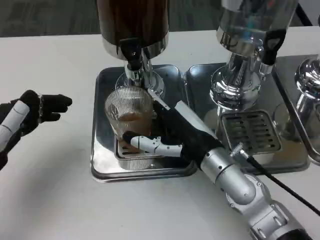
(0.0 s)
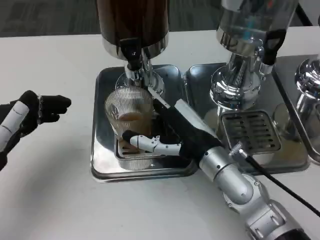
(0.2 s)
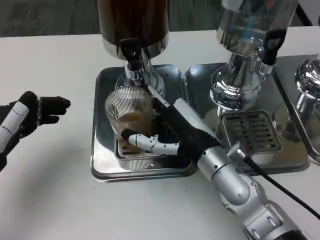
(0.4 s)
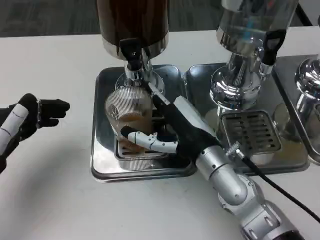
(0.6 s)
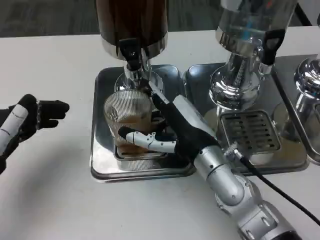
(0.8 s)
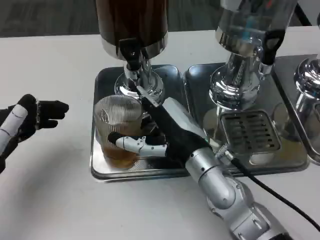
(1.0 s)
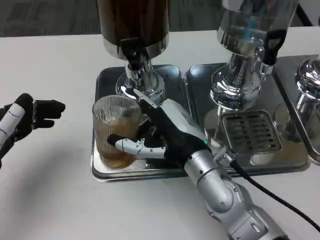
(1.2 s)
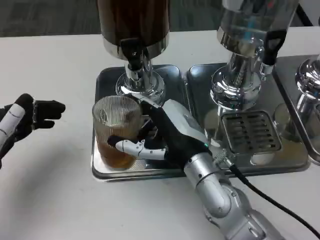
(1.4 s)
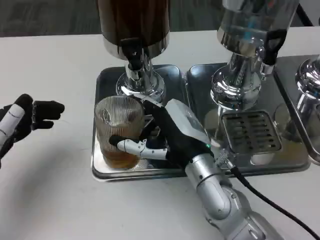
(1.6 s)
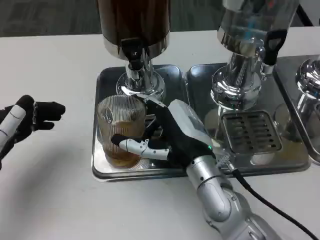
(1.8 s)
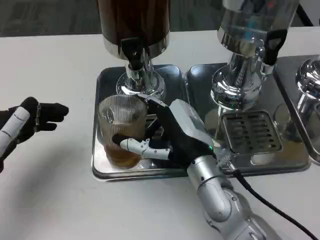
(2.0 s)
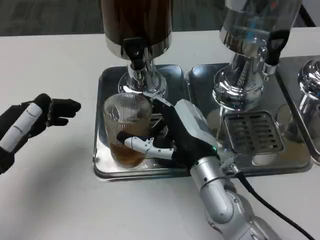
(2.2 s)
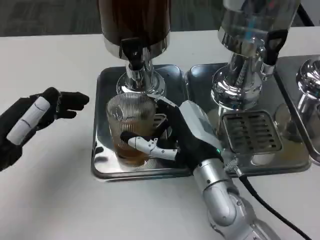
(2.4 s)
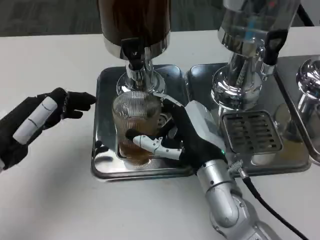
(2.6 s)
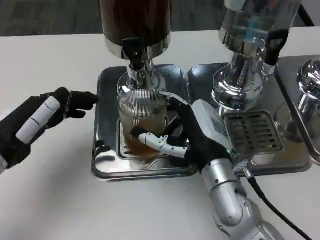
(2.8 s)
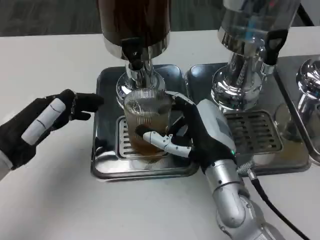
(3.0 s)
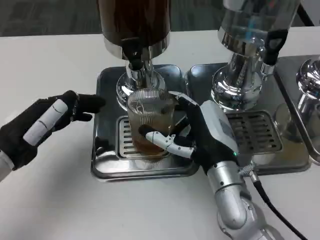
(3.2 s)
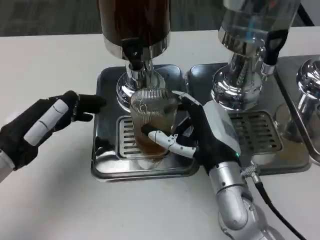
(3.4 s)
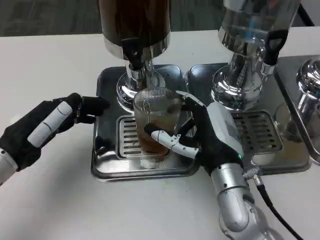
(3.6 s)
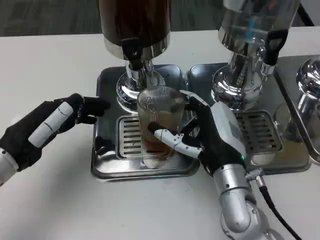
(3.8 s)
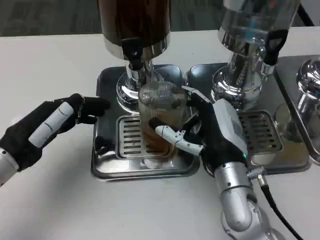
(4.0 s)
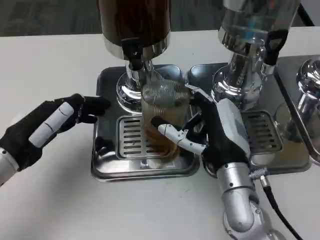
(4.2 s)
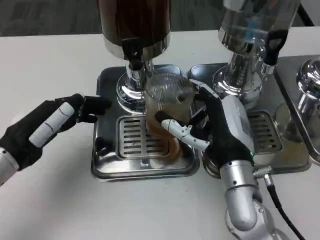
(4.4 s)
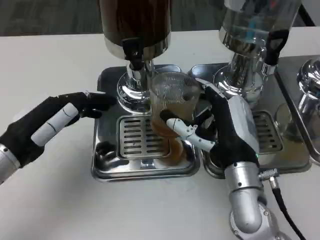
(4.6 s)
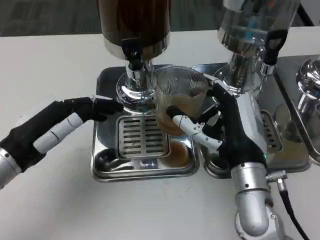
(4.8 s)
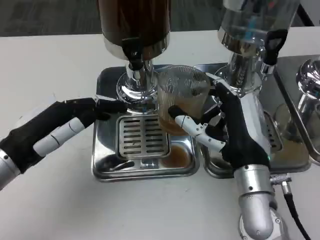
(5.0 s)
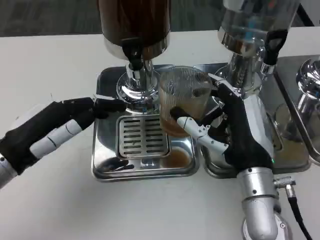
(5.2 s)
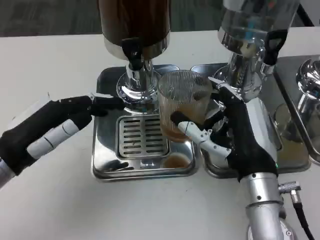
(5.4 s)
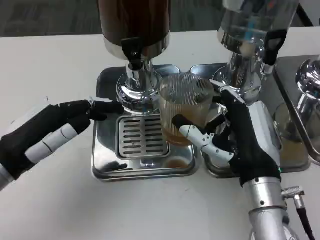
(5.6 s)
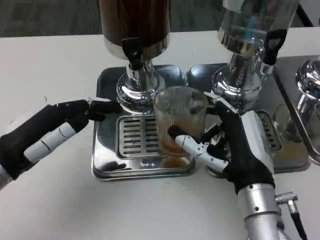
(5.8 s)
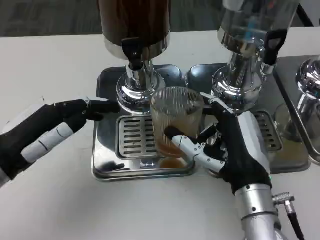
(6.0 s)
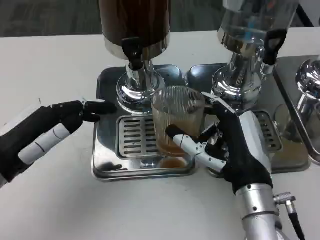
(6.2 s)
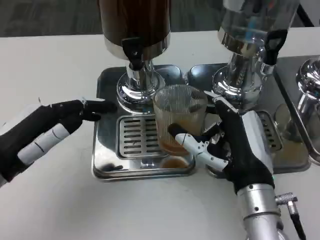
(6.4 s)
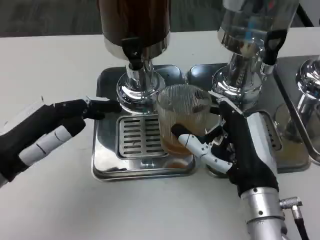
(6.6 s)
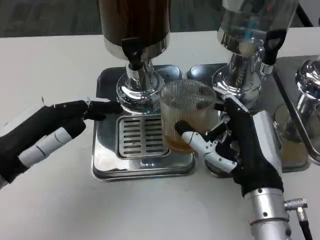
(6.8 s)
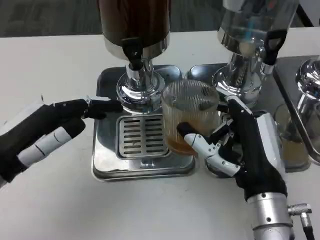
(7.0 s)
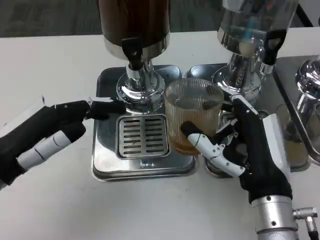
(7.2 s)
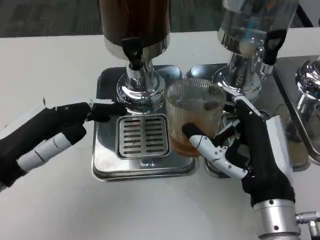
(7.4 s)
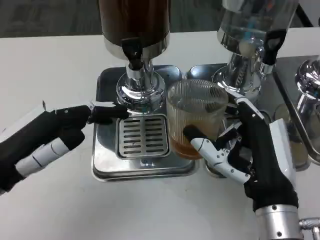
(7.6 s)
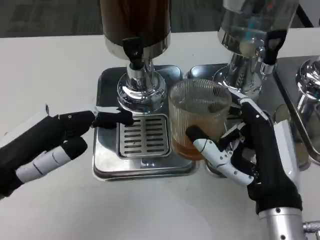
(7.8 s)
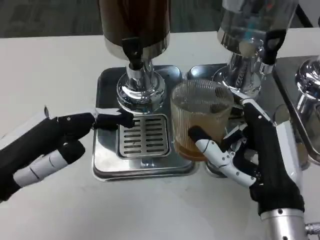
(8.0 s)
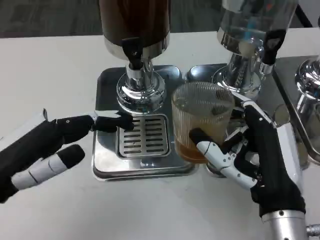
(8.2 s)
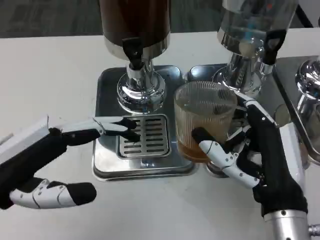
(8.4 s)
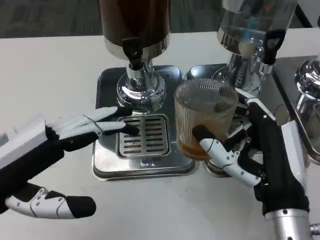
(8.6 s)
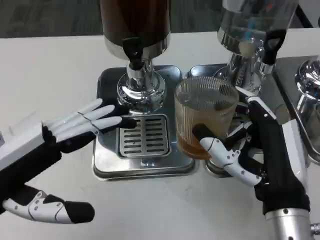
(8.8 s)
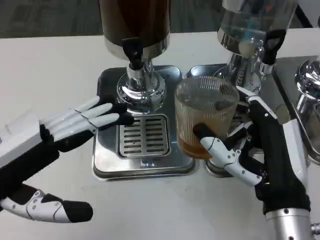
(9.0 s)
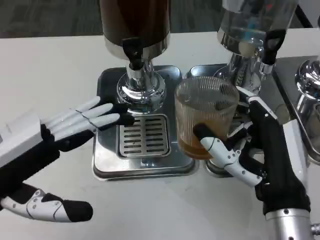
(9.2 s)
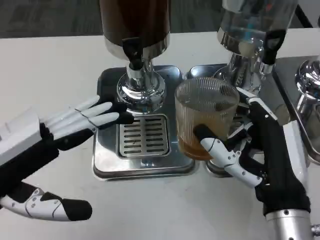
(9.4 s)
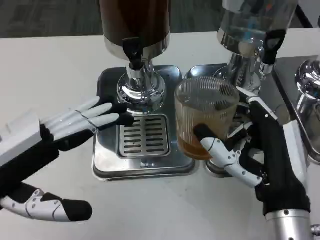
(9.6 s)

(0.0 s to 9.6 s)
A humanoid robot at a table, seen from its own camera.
Task of the whole recording: Grasp the cup under the faucet to collect the drink, then remove the cup.
0.0 s - 1.6 s: The hands make only small movements.
4.8 s - 6.4 s: There are only small adjustments of the hands.
6.4 s - 8.0 s: The right hand ends up some 5 cm from where it was.

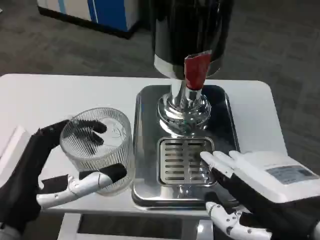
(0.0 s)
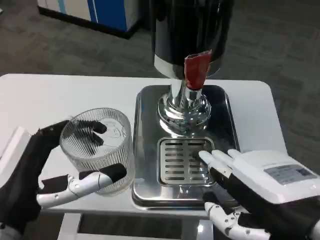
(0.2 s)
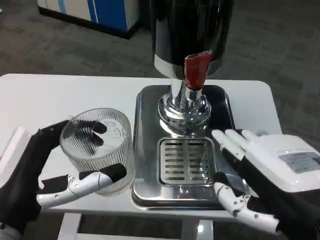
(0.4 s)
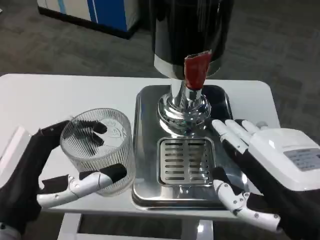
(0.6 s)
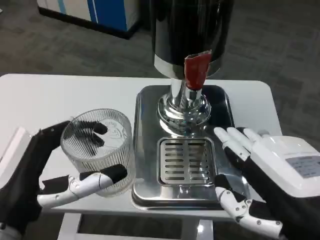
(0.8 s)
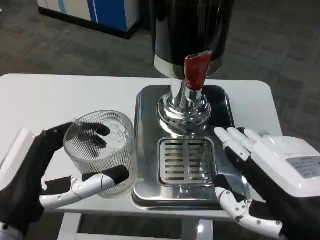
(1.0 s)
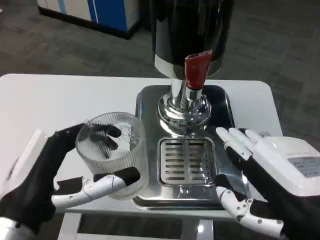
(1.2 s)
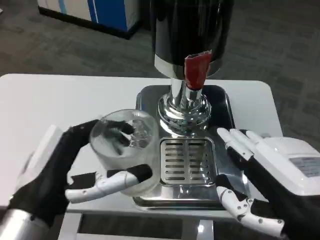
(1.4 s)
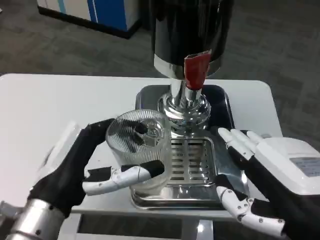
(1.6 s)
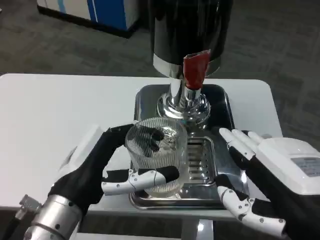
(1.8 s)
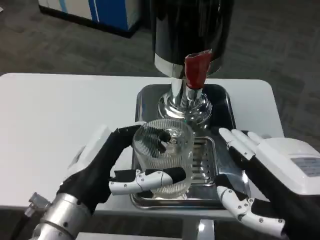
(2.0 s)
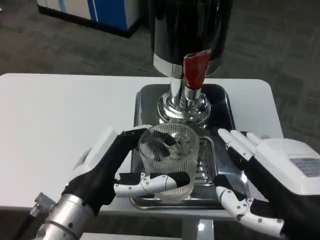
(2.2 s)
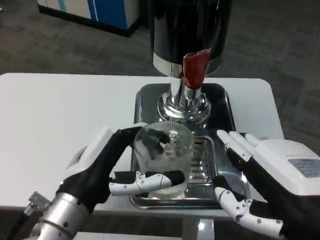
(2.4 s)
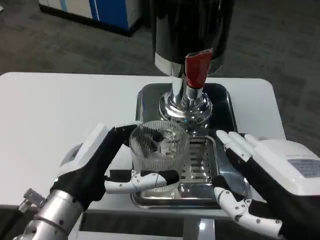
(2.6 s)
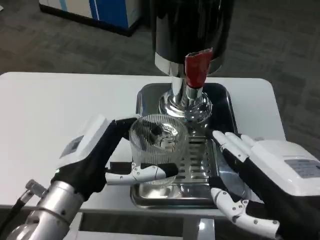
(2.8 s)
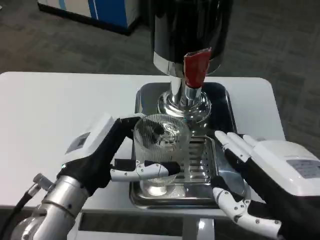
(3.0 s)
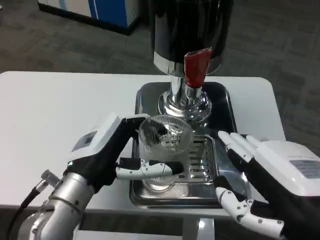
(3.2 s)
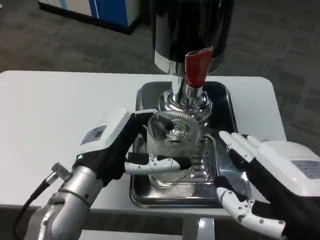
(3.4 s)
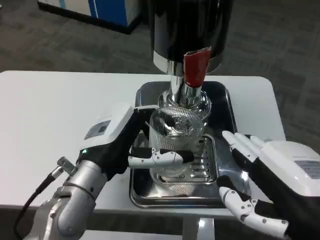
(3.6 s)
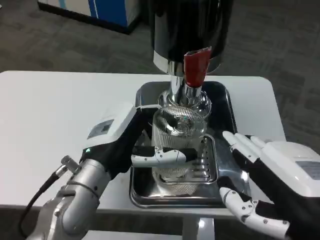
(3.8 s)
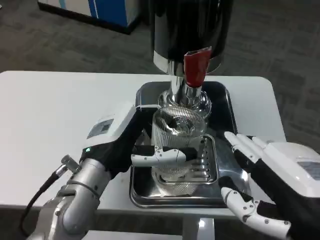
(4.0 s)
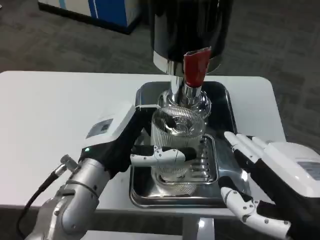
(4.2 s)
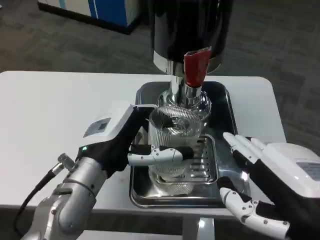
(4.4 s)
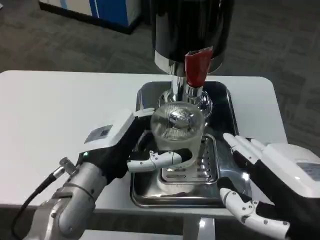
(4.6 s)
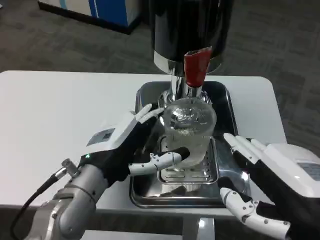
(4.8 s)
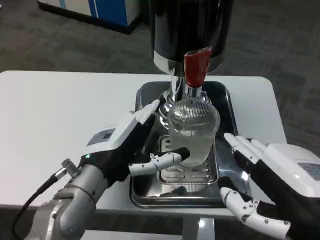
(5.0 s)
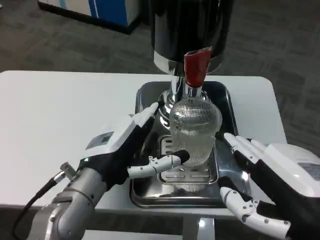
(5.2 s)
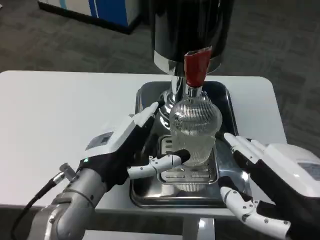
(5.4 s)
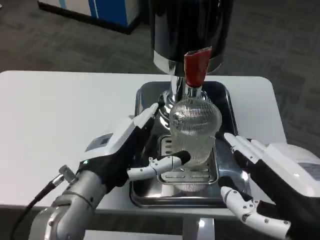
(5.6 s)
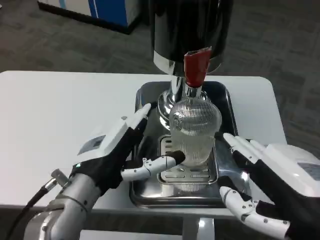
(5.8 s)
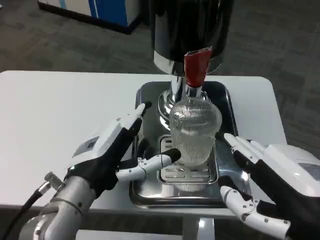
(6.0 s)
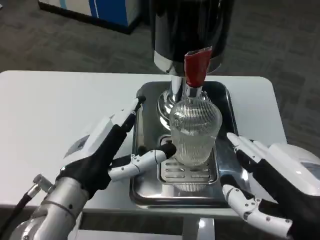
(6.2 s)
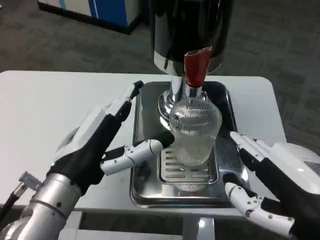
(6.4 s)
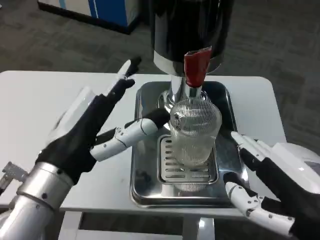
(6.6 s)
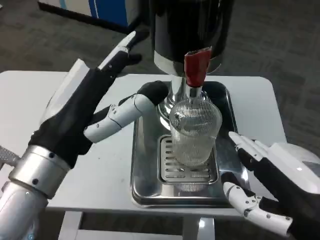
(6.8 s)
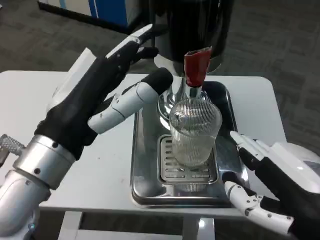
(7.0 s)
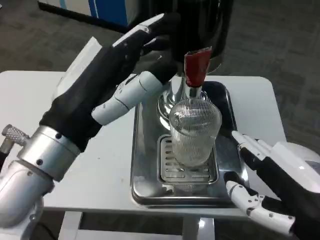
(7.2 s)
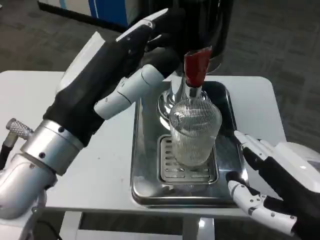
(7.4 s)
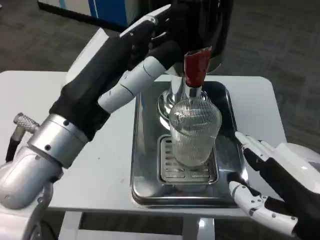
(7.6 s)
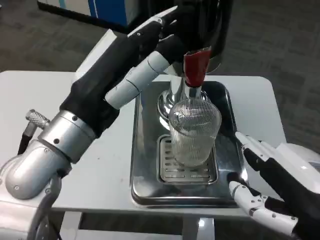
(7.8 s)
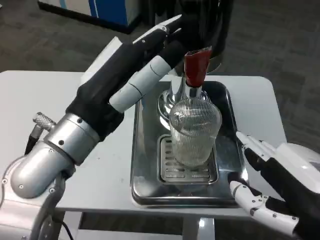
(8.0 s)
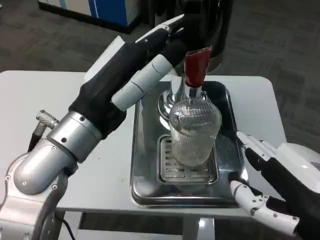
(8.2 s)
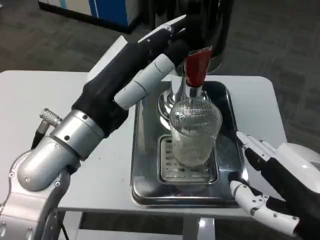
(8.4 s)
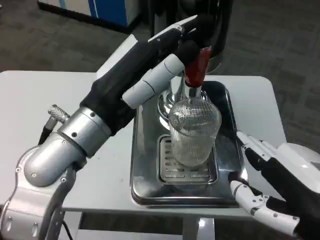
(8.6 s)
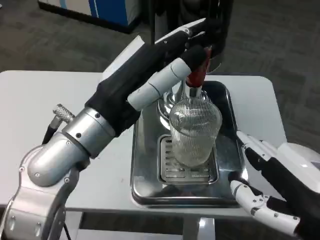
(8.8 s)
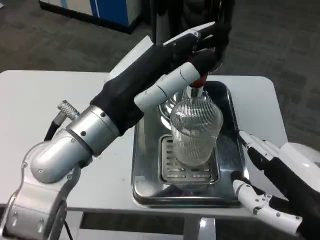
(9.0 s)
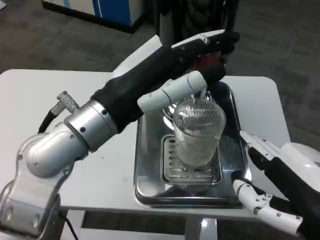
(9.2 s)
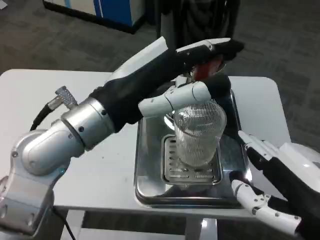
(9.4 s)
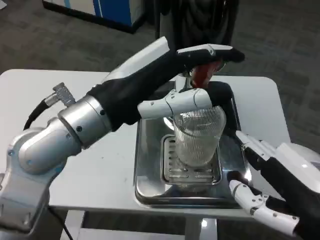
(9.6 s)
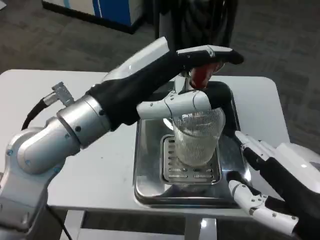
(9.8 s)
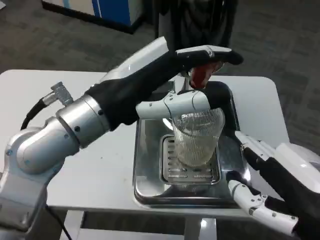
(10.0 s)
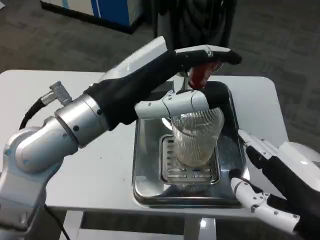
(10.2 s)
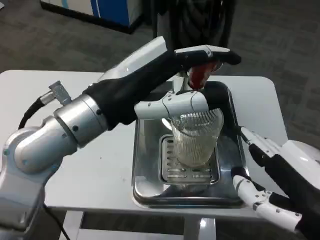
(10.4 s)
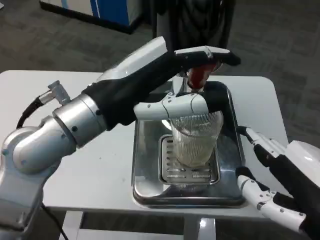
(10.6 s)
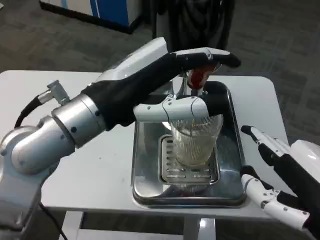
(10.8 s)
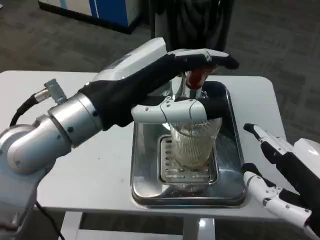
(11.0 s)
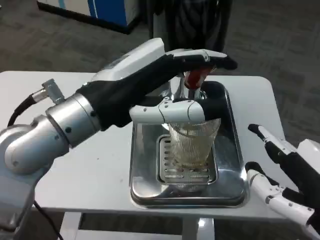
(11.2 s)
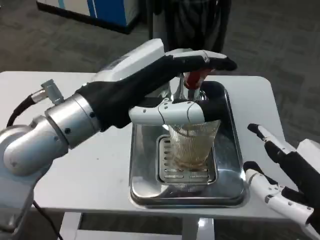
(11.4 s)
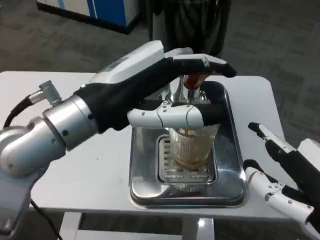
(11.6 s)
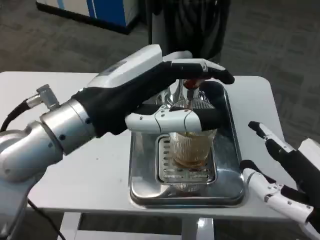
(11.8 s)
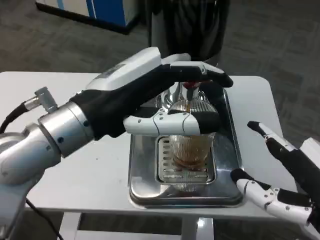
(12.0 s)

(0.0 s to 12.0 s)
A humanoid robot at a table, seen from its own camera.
Task of the whole recording: Grasp the cup under the faucet to collect the drink, then remove the cup.
0.0 s - 1.6 s: The left hand changes place by about 5 cm.
4.4 s - 6.0 s: The hands stay close to where they were, moving slightly.
6.0 s - 7.6 s: The left hand goes about 10 cm upward.

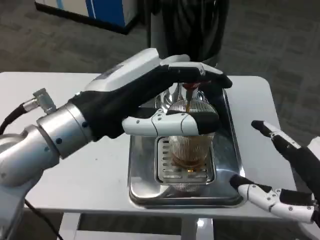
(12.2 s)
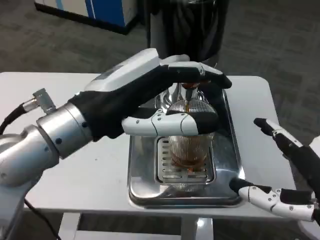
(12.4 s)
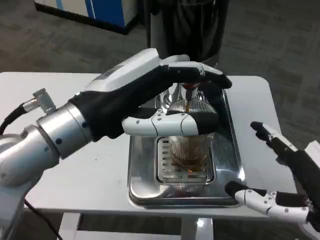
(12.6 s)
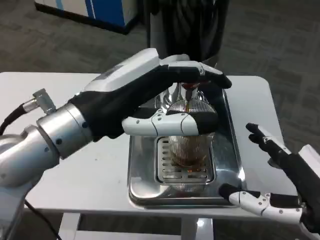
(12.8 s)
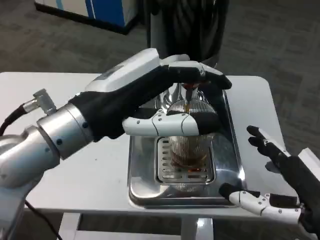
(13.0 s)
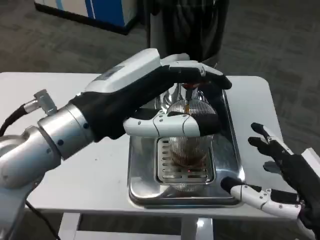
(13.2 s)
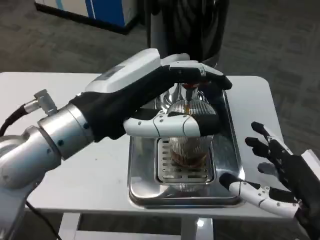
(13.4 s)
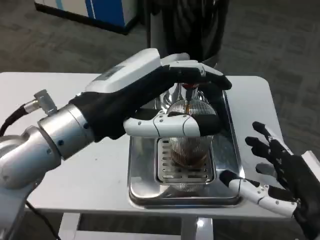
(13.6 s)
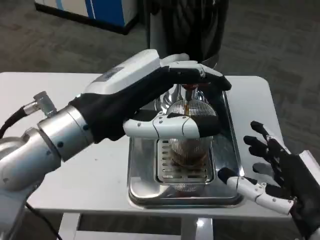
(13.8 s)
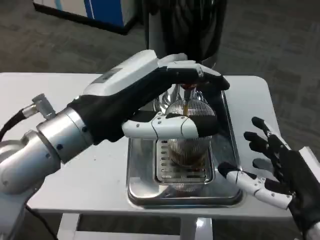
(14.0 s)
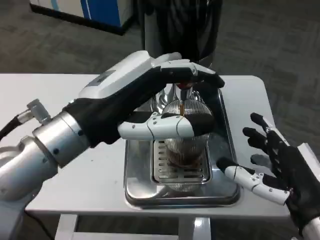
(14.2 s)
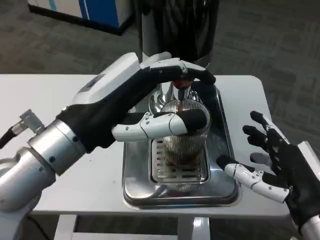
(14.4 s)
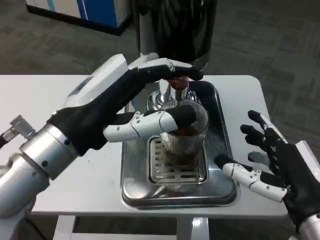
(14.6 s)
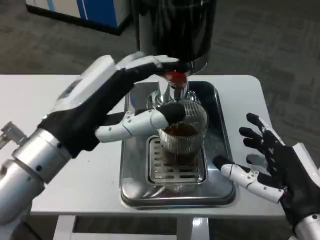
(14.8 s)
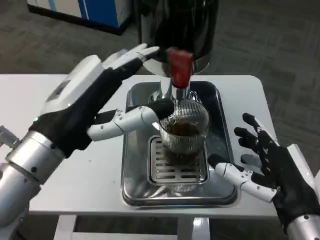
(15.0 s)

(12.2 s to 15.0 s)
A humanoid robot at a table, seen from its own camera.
Task of the whole recording: Grasp the cup under the faucet to collect the drink, then remove the cup.
12.2 s - 13.6 s: The right hand is displaced downward by some 5 cm.
